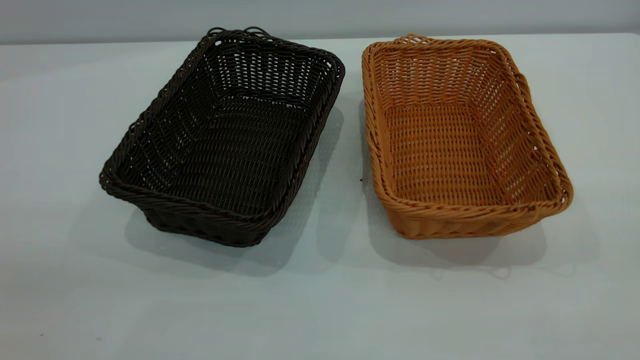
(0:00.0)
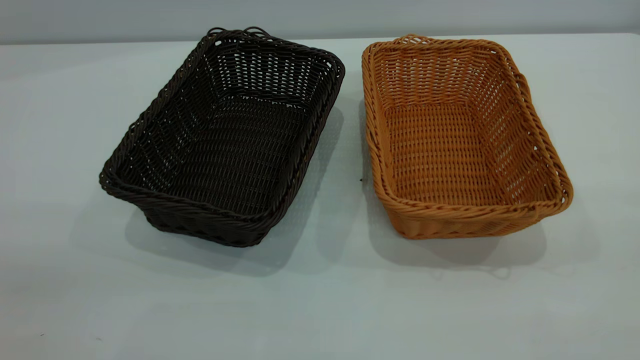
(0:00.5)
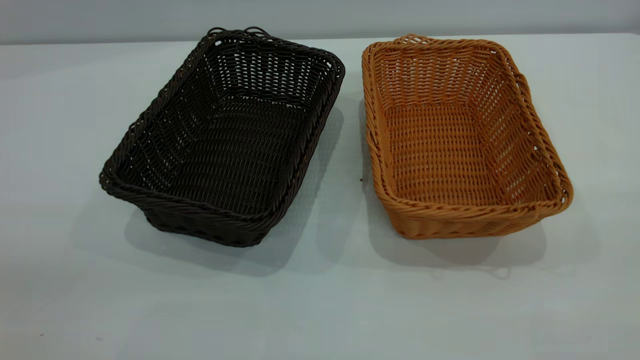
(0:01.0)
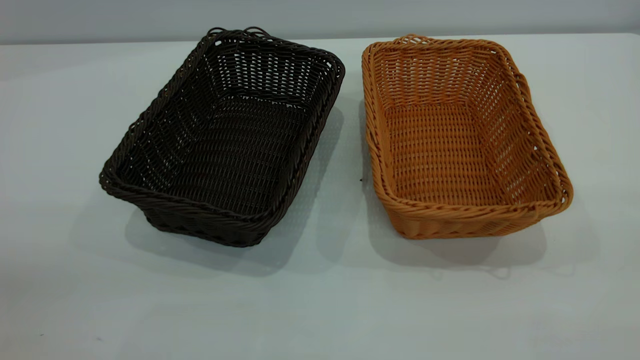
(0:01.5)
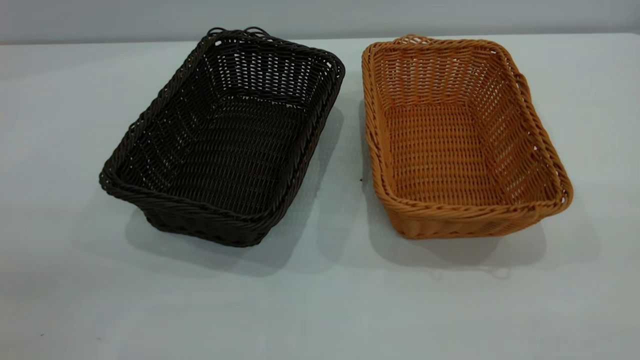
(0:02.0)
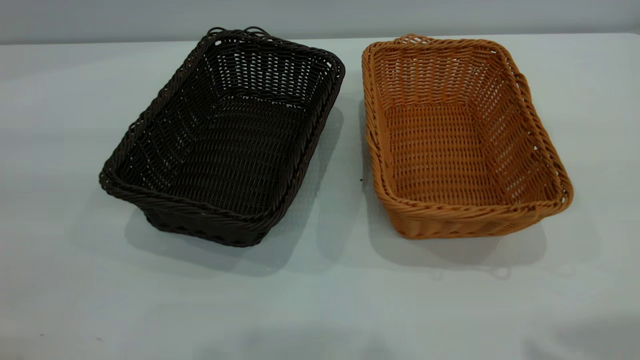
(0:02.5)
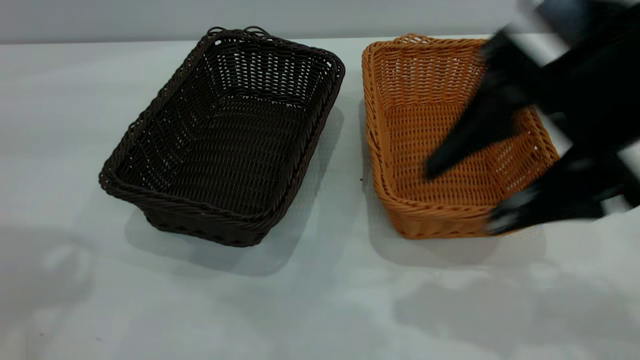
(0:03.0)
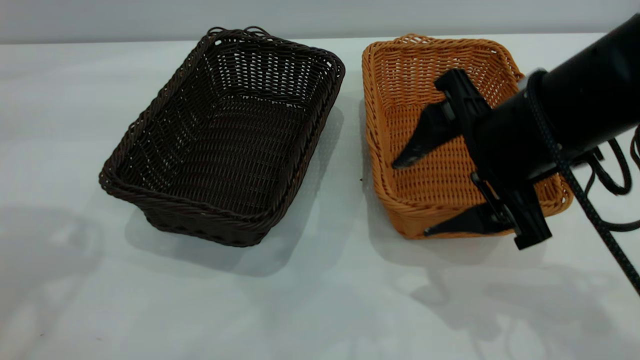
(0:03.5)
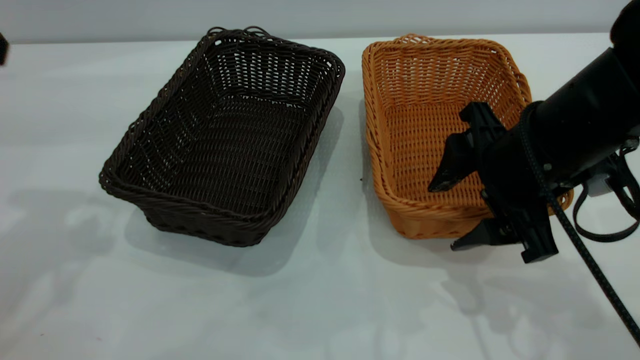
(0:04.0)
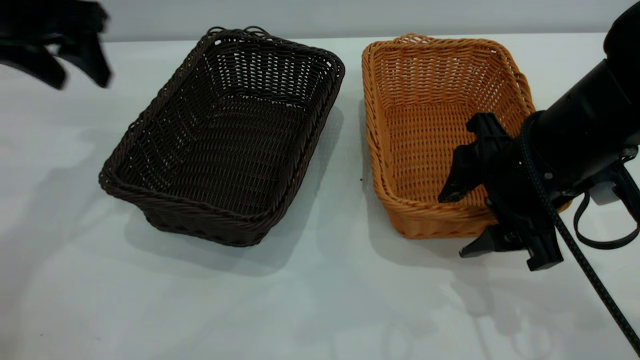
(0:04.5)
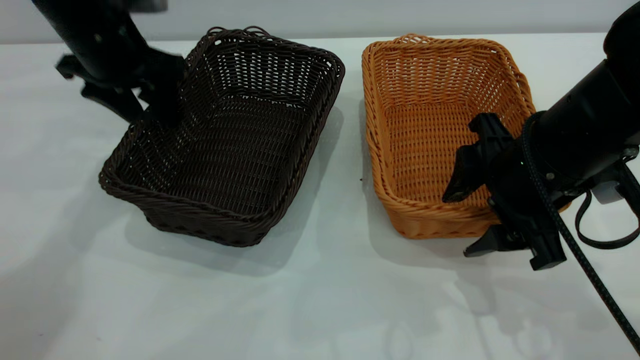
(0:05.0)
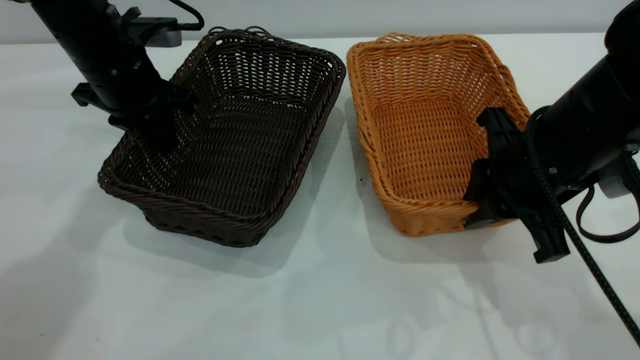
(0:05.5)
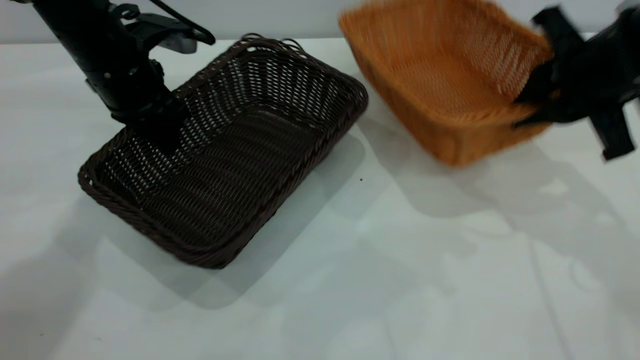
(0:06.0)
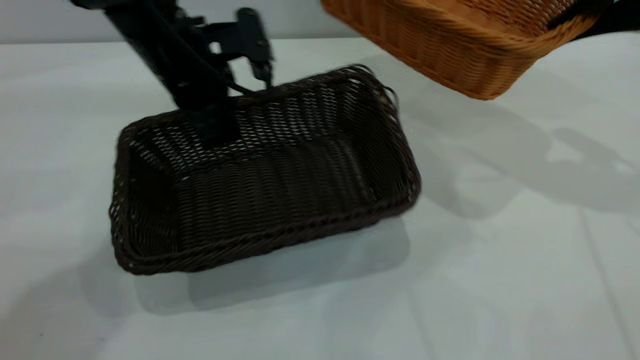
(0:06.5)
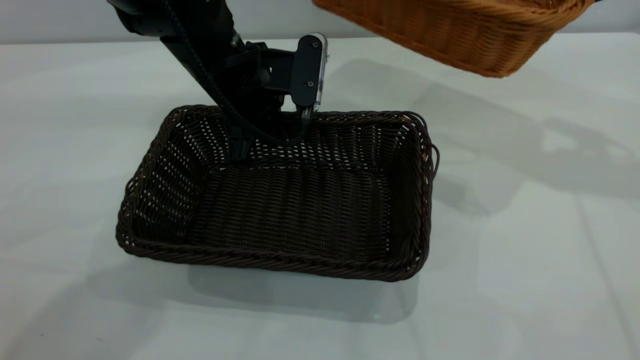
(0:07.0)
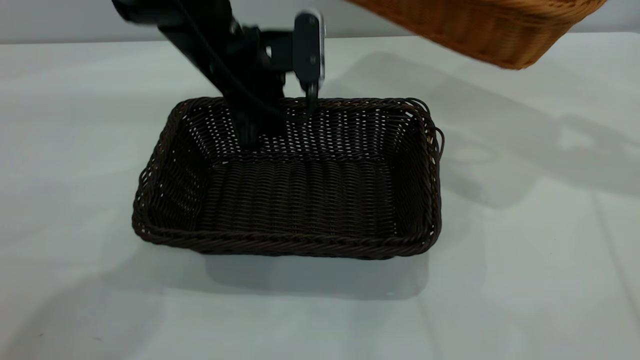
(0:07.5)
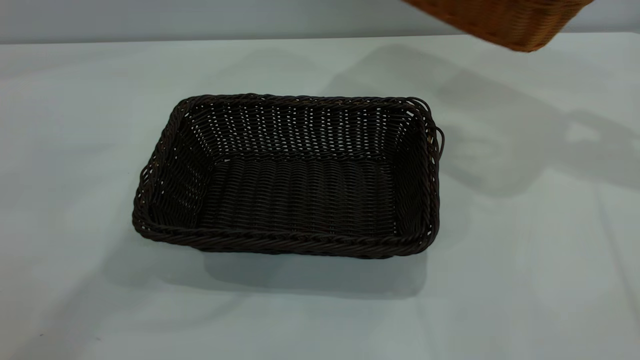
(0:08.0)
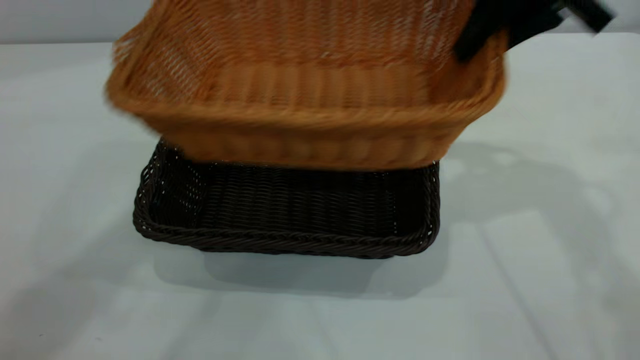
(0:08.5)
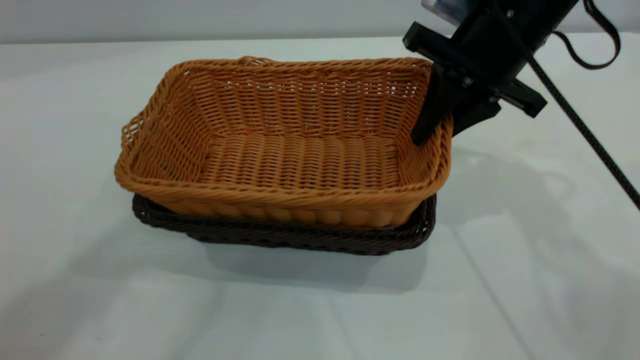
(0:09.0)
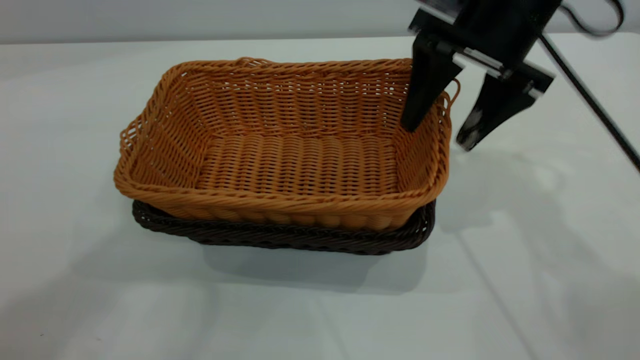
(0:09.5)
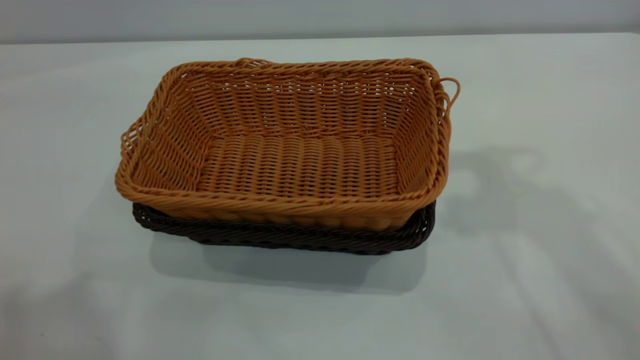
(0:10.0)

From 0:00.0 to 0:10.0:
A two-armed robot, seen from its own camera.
Task of the whole recording: the left gripper grasp the black basket and place it in the center of the table, the right gripper grasp the brown basket and place it inside the black one.
Step, from 0:00.0 to 0:06.0: Pick up the light basket with the right gripper.
Step, from 0:06.5 to 0:07.5: Move the dark basket to the center of view.
Step, from 0:08.0 to 0:09.5: Place the light basket on the dark basket.
From 0:00.0 to 0:02.0: The two grippers keep their place.
From 0:02.0 to 0:04.0: The right gripper is displaced forward, downward and to the left by about 35 cm, while the left gripper goes approximately 30 cm forward.
From 0:04.0 to 0:06.0: The right gripper moves to the right and forward, some 10 cm, and closes; the left gripper shifts about 20 cm downward, forward and to the right, and closes its fingers.
From 0:06.0 to 0:08.0: The left gripper moves upward and to the right, approximately 25 cm, and opens, while the right gripper travels upward, to the right and forward by approximately 15 cm.
From 0:08.0 to 0:10.0: The right gripper is displaced to the left, upward and backward by roughly 20 cm, and opens, while the left gripper goes about 30 cm backward, upward and to the left.
